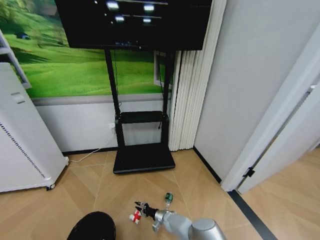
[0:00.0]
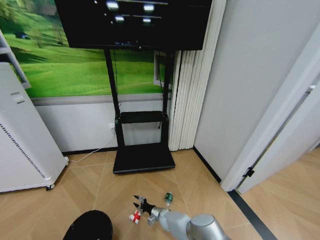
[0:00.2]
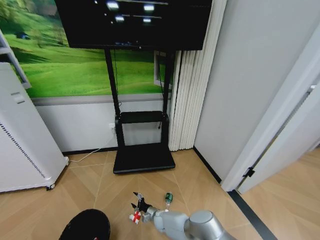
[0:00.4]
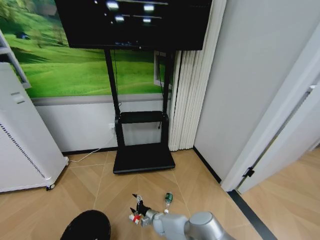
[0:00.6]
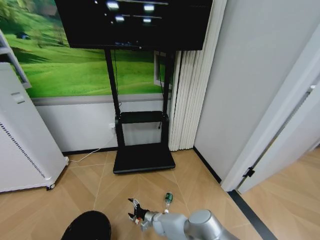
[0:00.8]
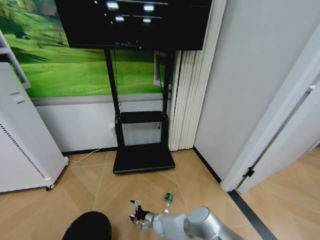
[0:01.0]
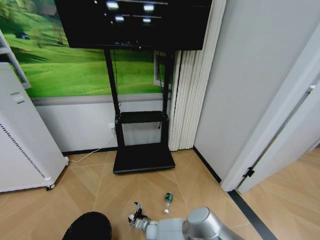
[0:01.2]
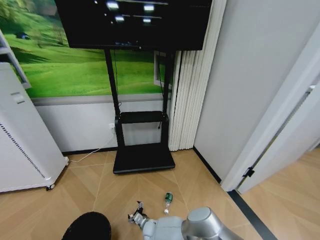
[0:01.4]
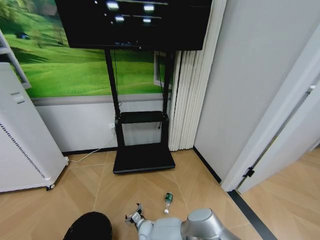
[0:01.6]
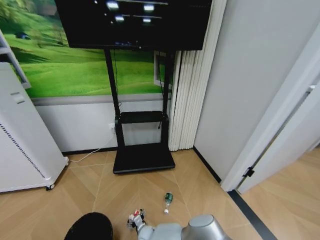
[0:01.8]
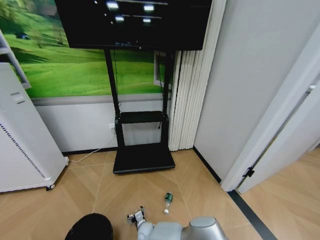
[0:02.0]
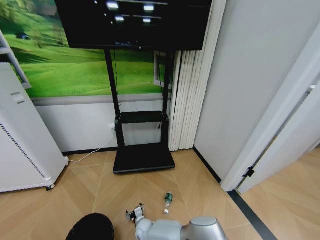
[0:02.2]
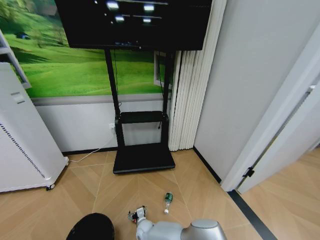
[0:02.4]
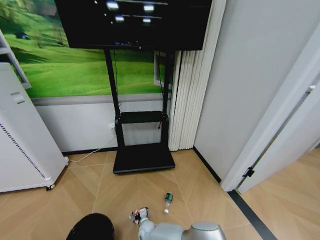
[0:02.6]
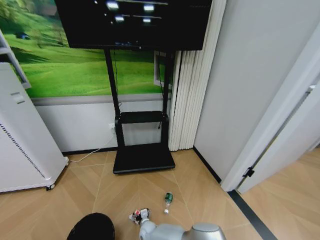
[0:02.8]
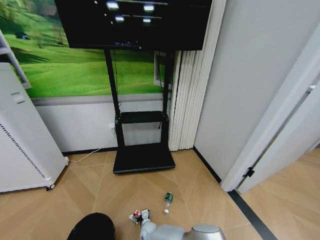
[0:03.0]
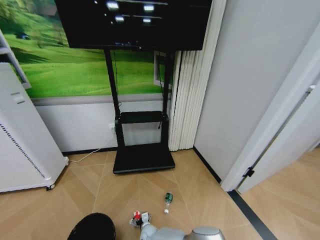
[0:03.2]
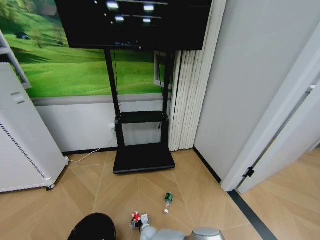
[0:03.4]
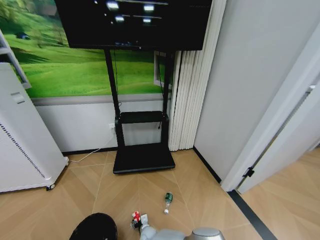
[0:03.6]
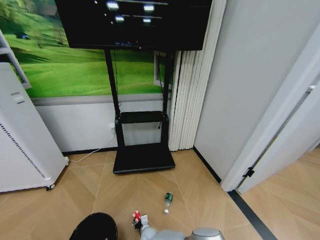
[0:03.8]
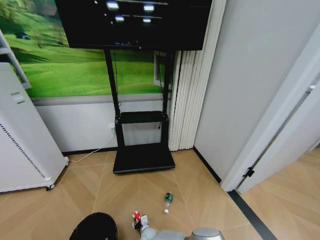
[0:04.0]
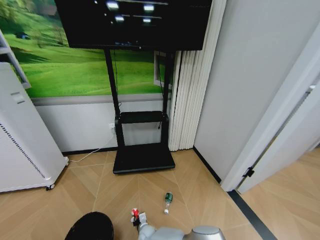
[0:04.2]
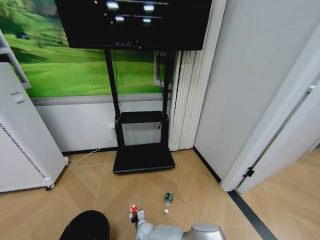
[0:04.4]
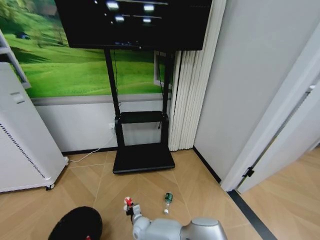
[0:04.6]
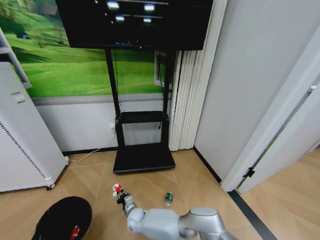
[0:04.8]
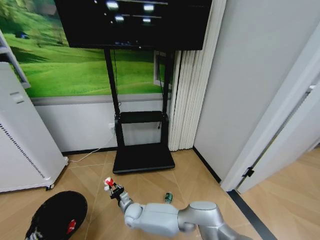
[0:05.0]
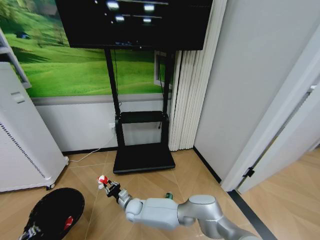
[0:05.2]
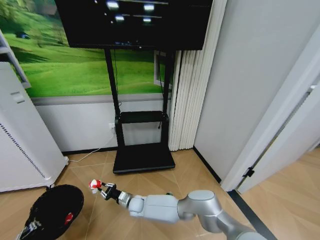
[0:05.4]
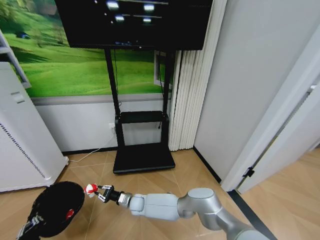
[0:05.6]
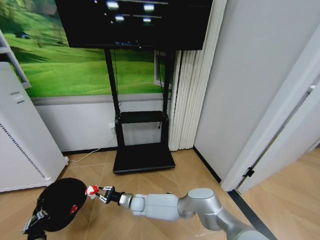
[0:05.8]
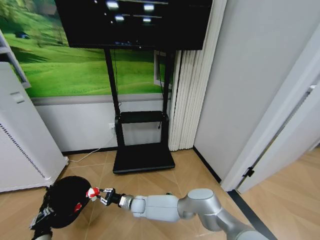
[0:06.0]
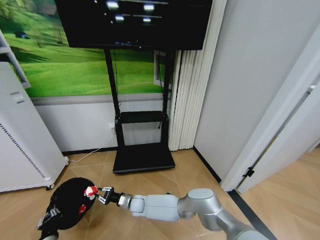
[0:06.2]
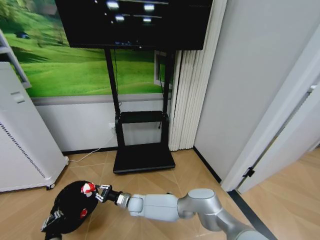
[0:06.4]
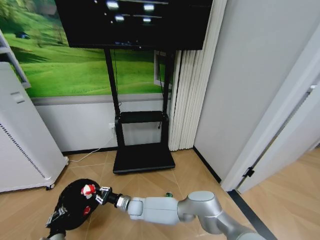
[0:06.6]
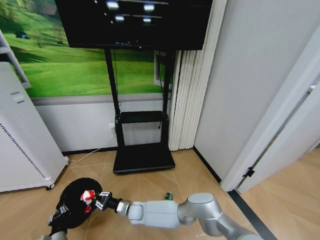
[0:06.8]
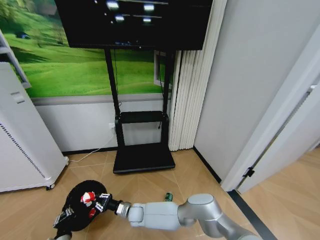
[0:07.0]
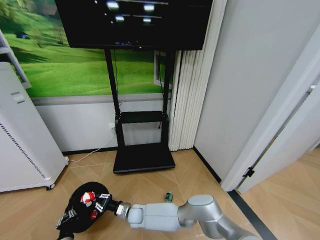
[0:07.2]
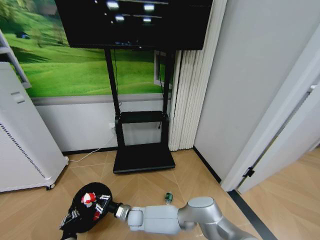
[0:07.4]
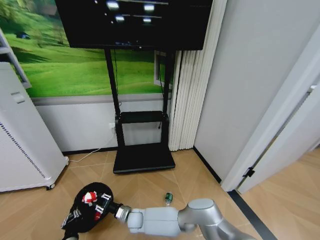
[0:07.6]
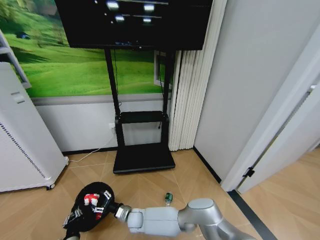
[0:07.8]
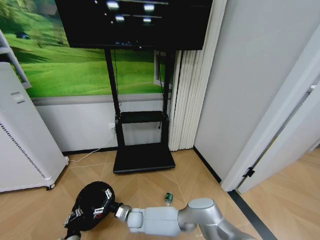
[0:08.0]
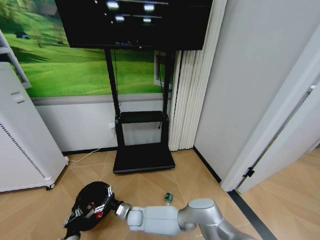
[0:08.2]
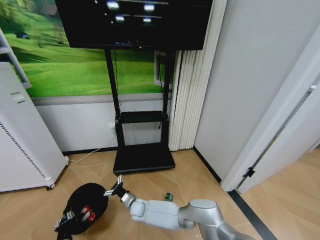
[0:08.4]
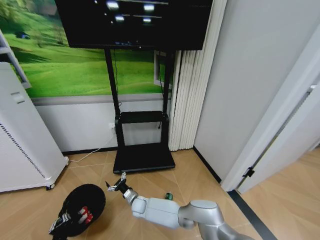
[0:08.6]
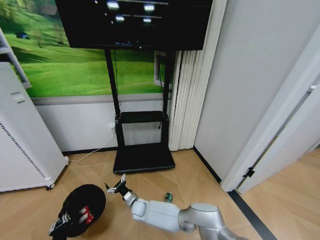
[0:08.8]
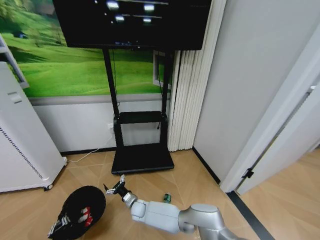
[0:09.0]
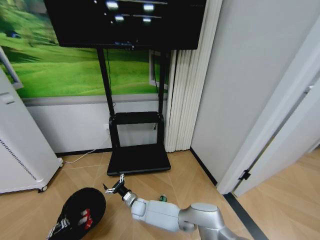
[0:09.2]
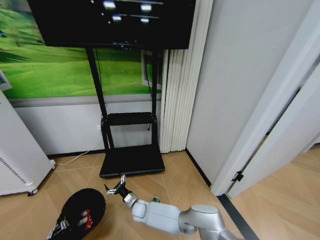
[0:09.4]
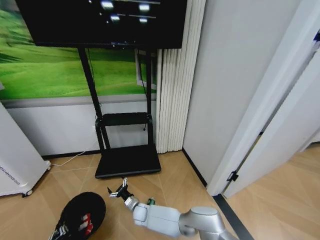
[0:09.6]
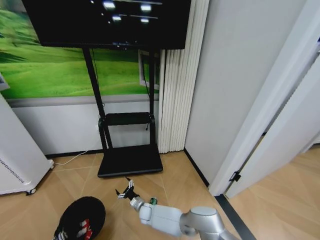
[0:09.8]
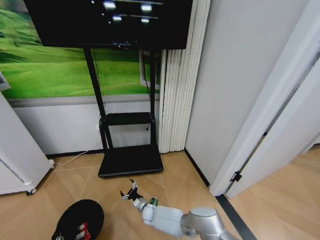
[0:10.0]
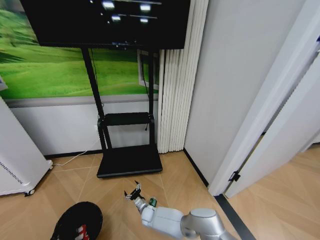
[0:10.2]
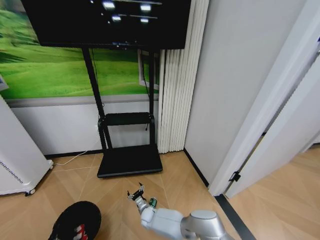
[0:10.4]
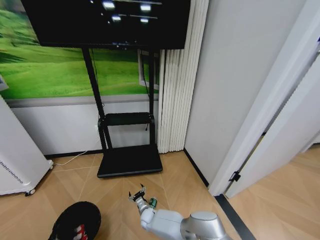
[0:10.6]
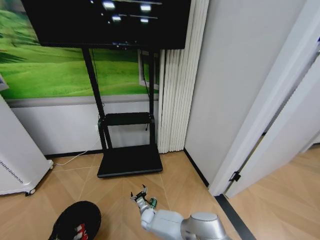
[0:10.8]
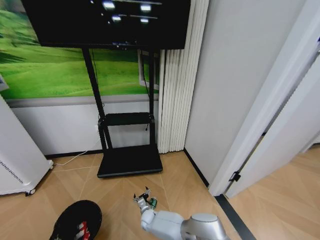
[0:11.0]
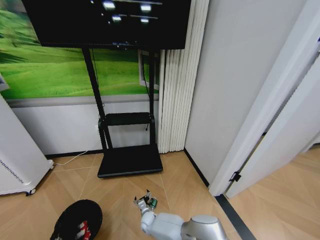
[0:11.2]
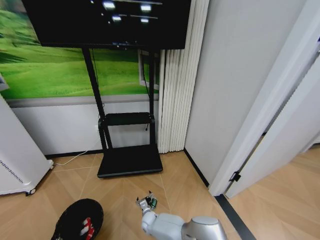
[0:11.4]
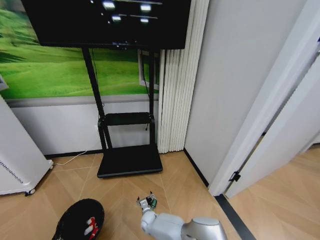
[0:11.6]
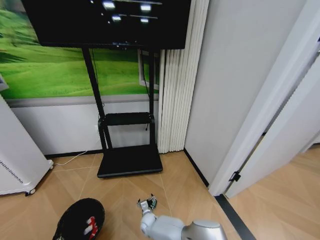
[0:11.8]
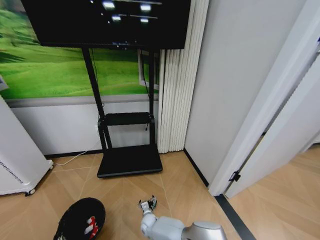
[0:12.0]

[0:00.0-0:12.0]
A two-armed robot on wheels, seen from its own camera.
Task of the whole recording: Pick up the trash bin and place the garbage on the floor into it.
0:00.0 to 0:01.6: The right gripper goes roughly 20 cm to the left, upward and backward, and opens.
0:03.0 to 0:04.4: The right gripper closes its fingers.
0:04.4 to 0:06.0: The left gripper travels forward and to the left by roughly 20 cm; the right gripper moves upward and forward, approximately 15 cm.
0:06.0 to 0:07.6: The left gripper heads to the right, covering roughly 10 cm, while the right gripper moves backward, about 5 cm.
0:07.6 to 0:09.0: The right gripper opens.
0:09.0 to 0:10.4: The right gripper goes about 10 cm downward and to the right; the left gripper goes about 5 cm backward.

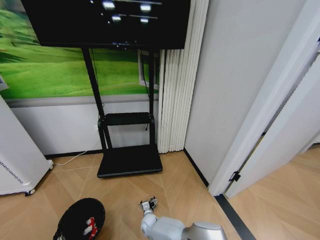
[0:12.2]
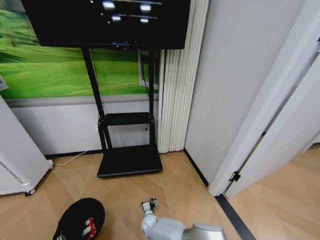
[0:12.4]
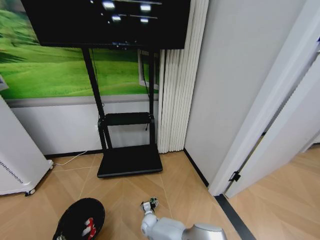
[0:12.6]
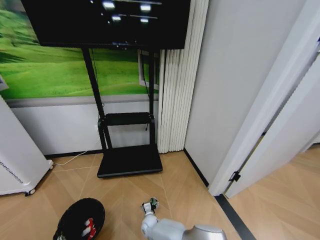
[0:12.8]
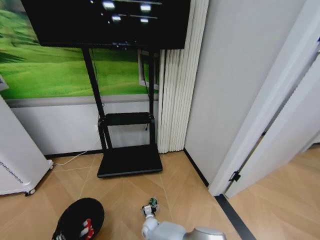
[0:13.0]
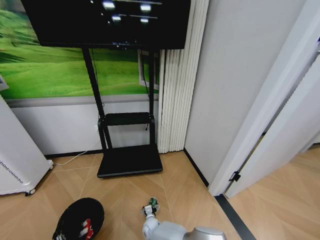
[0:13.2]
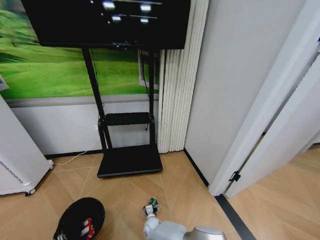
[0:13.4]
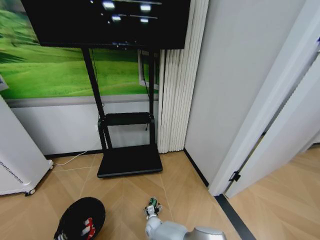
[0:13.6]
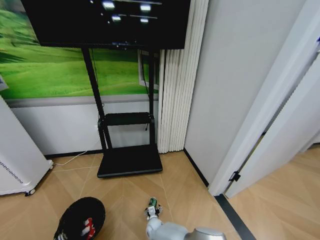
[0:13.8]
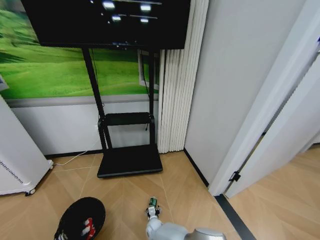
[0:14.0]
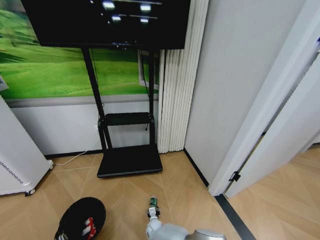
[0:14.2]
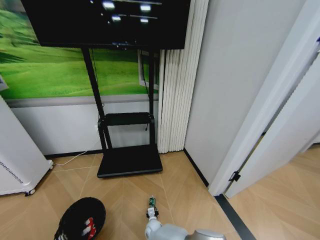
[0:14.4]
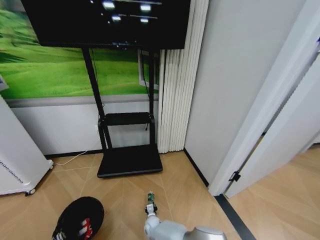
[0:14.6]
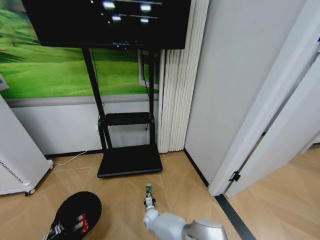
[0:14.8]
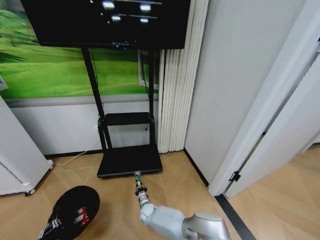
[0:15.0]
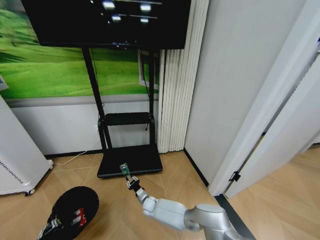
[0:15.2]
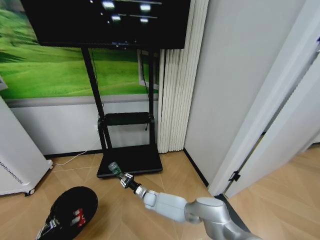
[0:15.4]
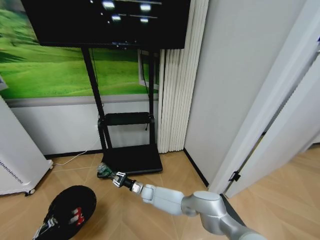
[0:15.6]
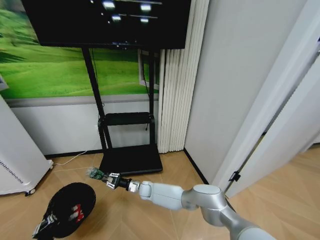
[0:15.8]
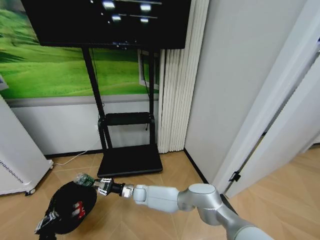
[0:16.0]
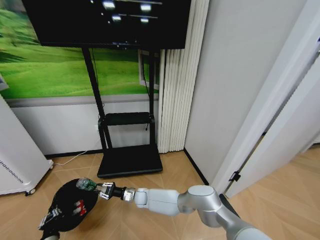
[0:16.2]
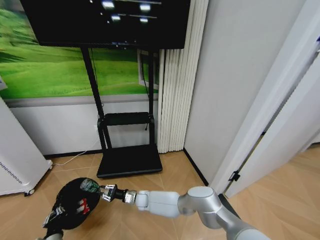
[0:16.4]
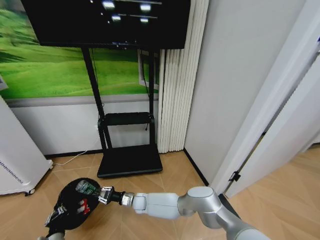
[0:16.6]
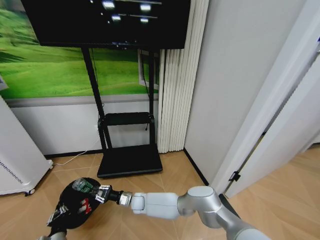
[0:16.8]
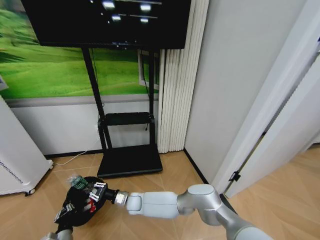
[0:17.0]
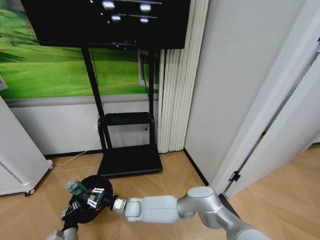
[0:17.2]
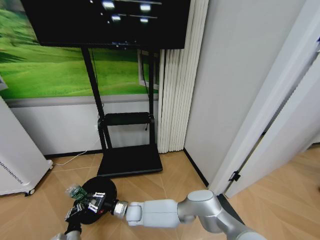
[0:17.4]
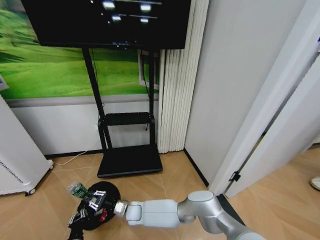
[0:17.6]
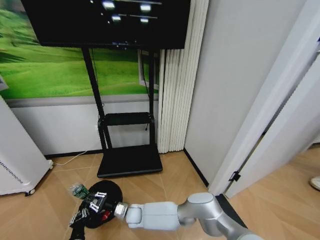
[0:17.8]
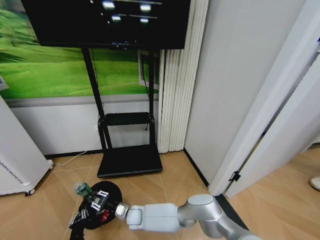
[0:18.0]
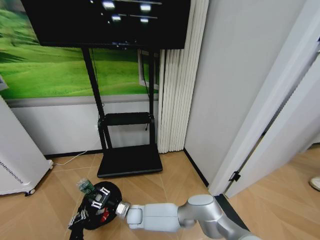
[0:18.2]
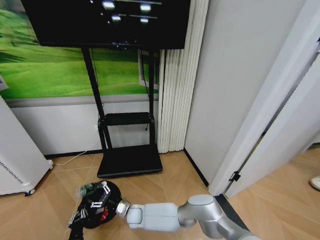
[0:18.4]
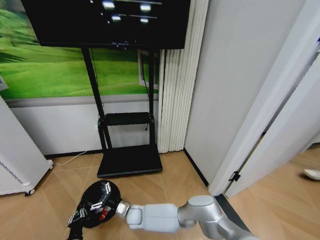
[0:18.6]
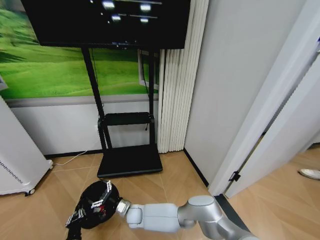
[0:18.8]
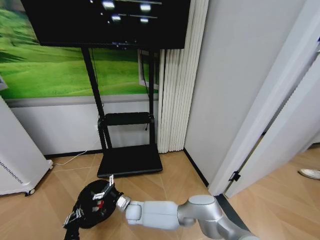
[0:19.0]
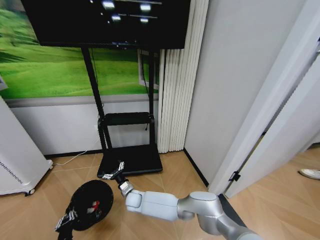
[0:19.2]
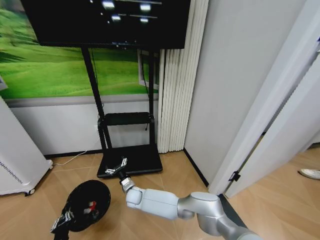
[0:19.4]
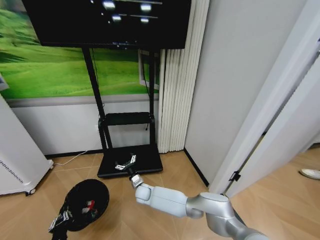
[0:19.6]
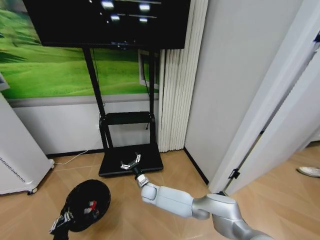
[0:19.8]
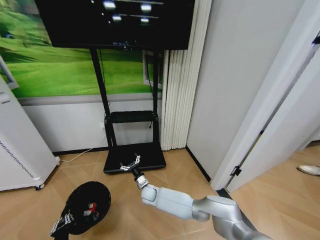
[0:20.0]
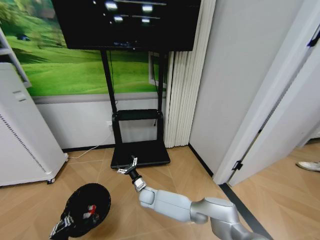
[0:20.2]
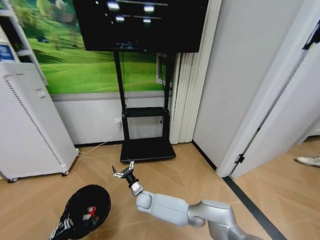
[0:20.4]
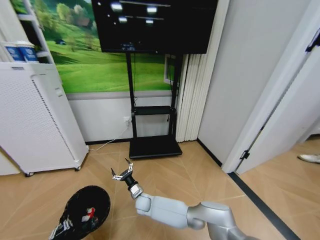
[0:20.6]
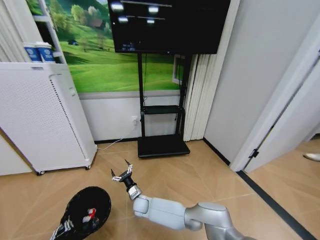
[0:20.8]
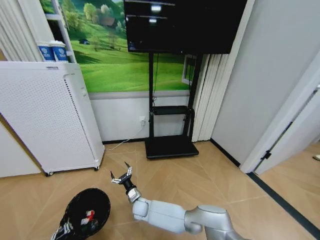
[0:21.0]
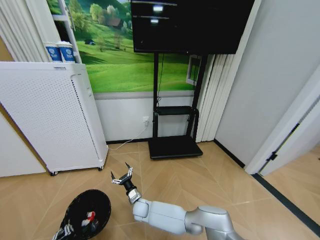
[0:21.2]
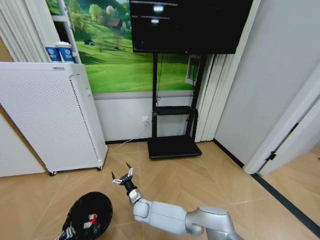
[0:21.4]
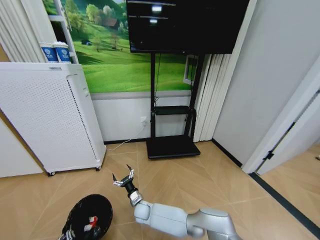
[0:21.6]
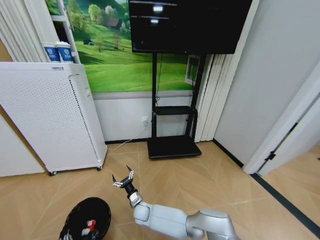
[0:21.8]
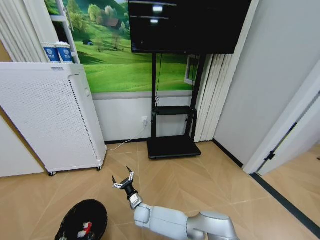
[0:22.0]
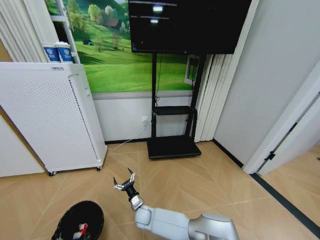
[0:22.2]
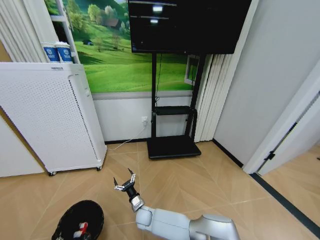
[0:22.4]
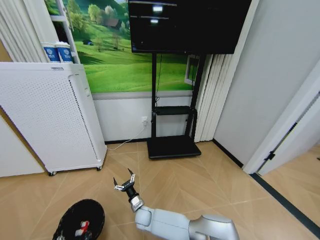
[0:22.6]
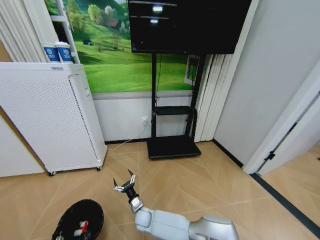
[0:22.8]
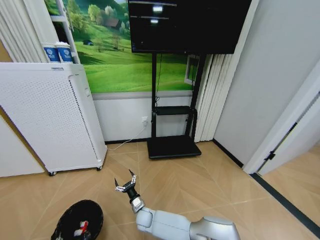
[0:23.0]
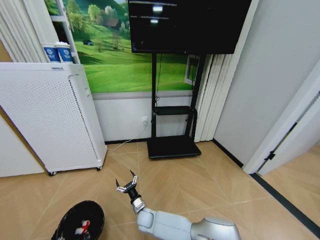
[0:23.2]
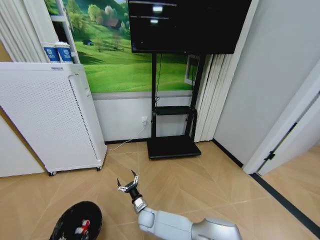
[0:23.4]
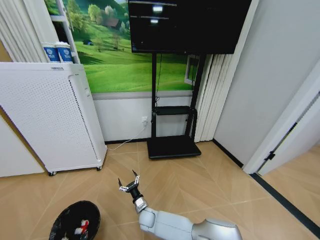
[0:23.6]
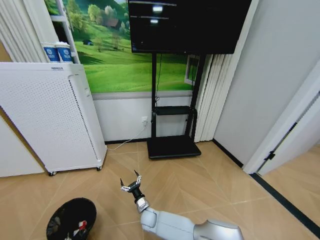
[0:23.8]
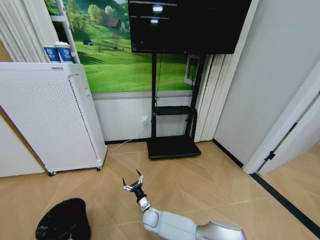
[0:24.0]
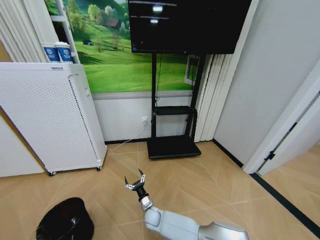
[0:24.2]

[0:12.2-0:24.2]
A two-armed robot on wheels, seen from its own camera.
Task of the whole recording: Pick up the trash bin and place the garbage on the floor into it.
0:12.2 to 0:13.8: The grippers make only small movements.
0:13.8 to 0:15.2: The right gripper heads upward and forward, covering some 10 cm, and closes up. Meanwhile the left gripper moves some 5 cm.
0:15.2 to 0:16.6: The right gripper heads upward, covering roughly 5 cm.
0:16.6 to 0:18.2: The left gripper heads to the right, covering roughly 5 cm. Meanwhile the right gripper goes approximately 5 cm backward.
0:18.2 to 0:19.8: The right gripper travels forward and to the right by approximately 10 cm, and opens up.
0:19.8 to 0:21.2: The right gripper moves backward, about 5 cm.
0:21.2 to 0:22.6: The left gripper travels downward by about 5 cm.
0:22.6 to 0:24.2: The left gripper opens up, while the right gripper heads to the right, covering roughly 5 cm.
